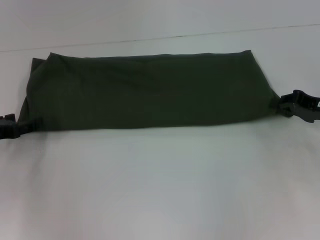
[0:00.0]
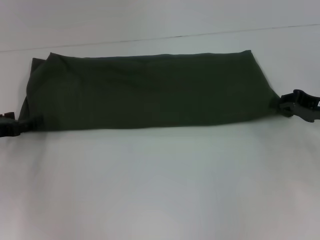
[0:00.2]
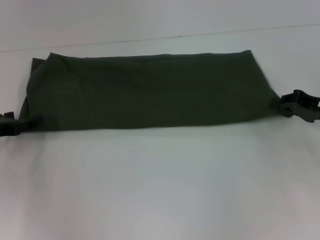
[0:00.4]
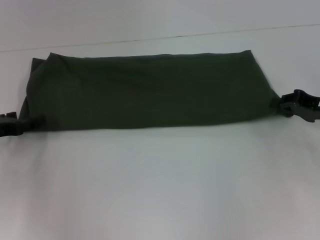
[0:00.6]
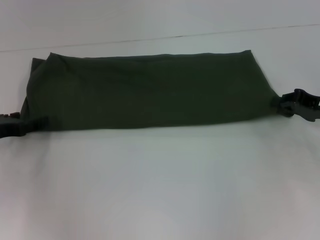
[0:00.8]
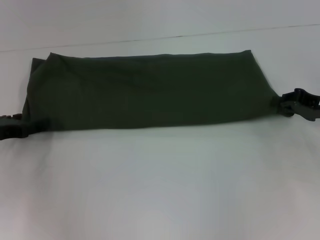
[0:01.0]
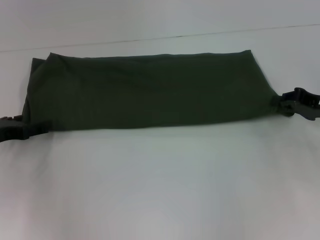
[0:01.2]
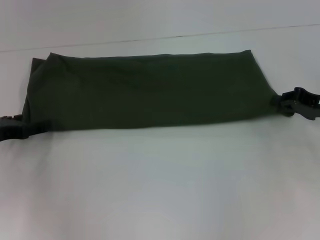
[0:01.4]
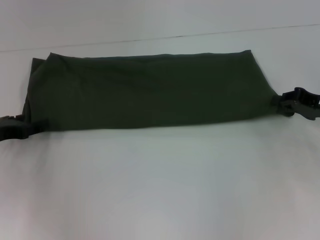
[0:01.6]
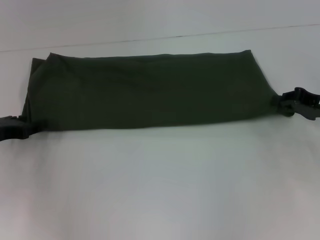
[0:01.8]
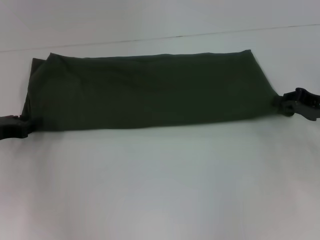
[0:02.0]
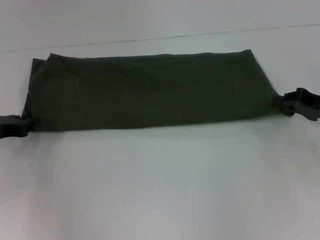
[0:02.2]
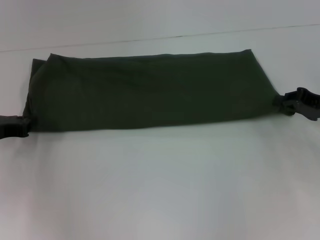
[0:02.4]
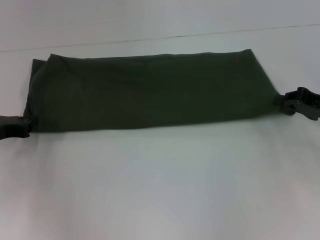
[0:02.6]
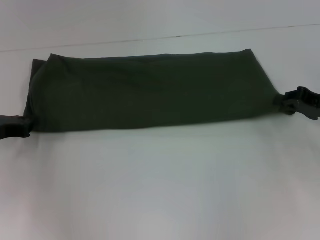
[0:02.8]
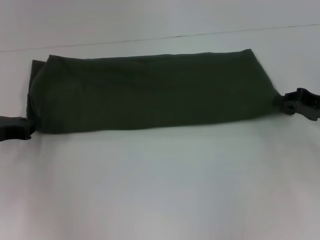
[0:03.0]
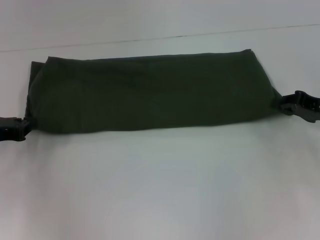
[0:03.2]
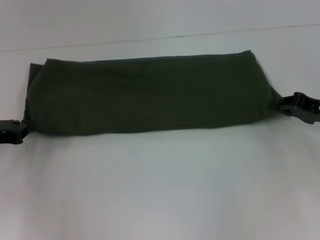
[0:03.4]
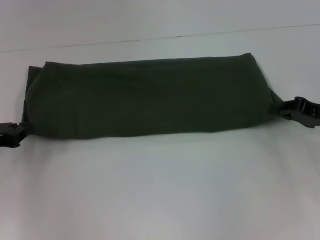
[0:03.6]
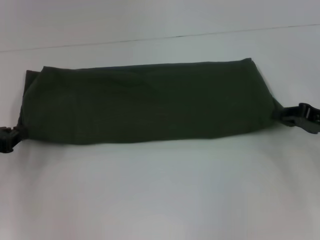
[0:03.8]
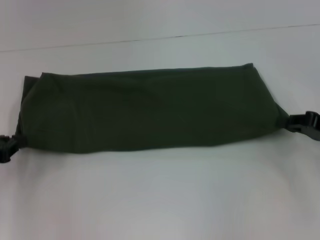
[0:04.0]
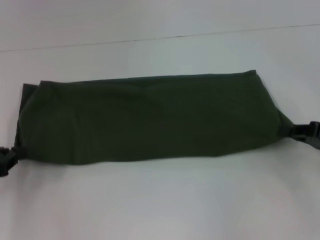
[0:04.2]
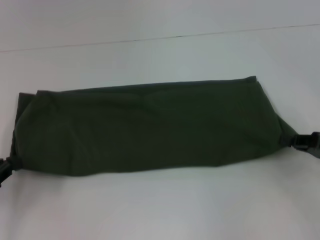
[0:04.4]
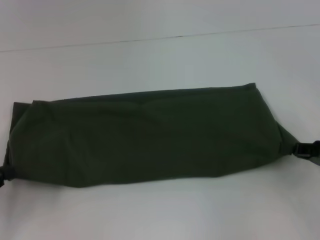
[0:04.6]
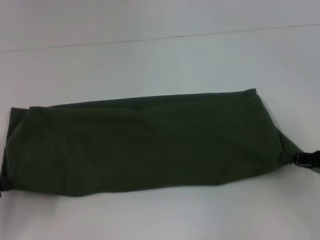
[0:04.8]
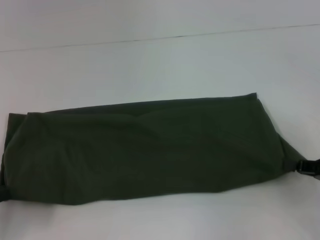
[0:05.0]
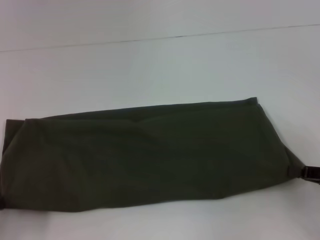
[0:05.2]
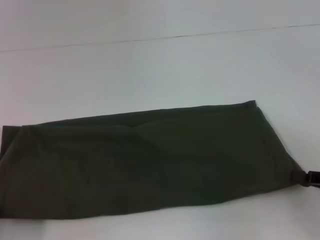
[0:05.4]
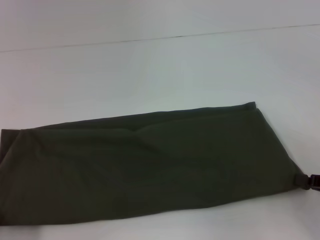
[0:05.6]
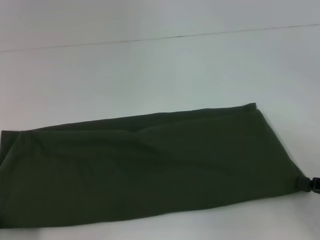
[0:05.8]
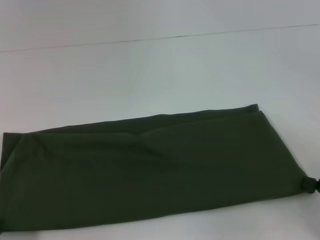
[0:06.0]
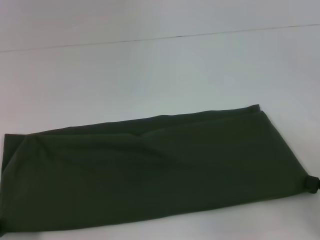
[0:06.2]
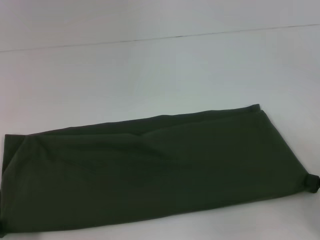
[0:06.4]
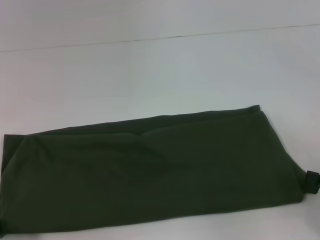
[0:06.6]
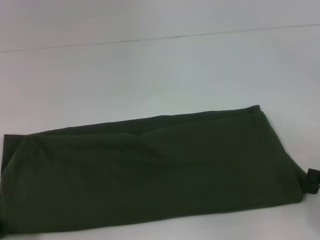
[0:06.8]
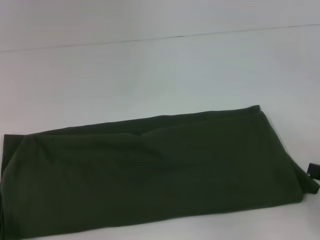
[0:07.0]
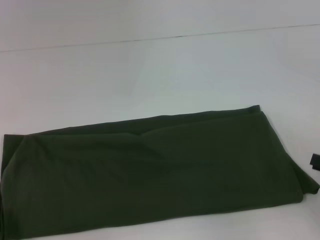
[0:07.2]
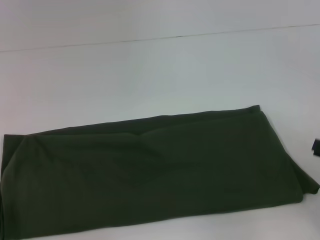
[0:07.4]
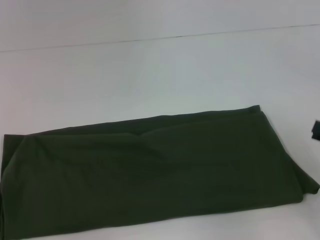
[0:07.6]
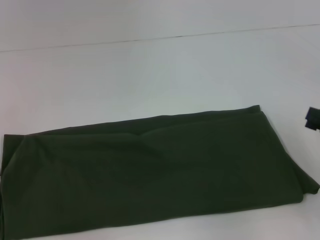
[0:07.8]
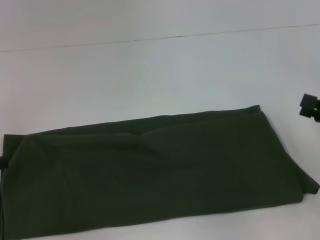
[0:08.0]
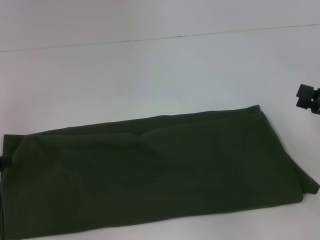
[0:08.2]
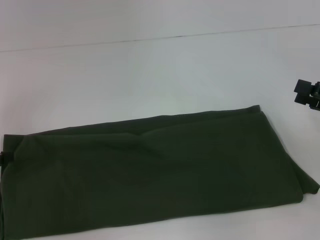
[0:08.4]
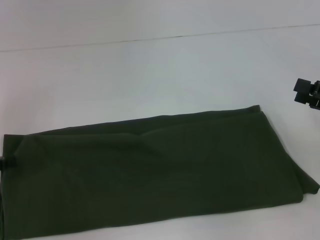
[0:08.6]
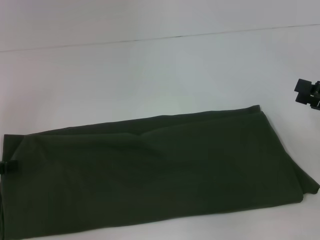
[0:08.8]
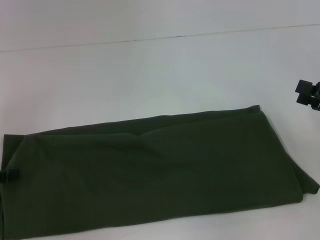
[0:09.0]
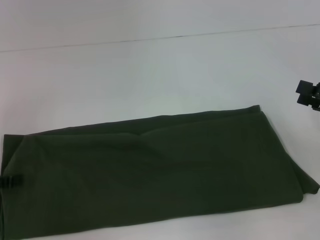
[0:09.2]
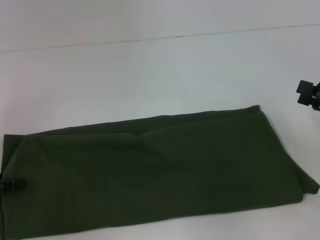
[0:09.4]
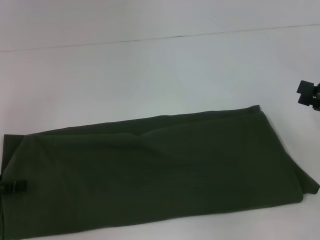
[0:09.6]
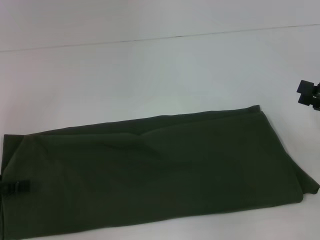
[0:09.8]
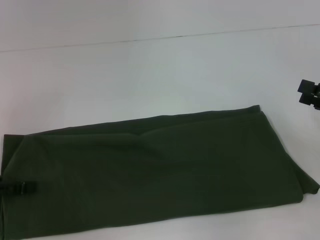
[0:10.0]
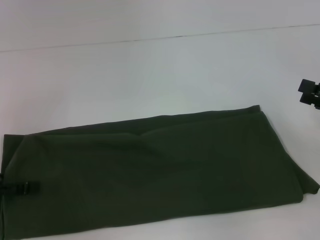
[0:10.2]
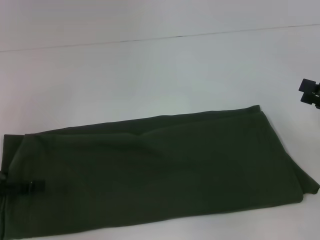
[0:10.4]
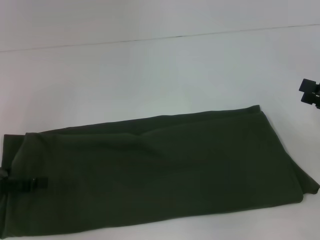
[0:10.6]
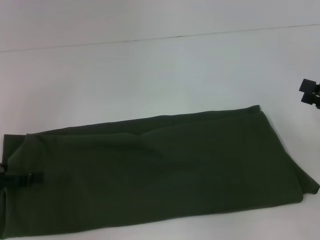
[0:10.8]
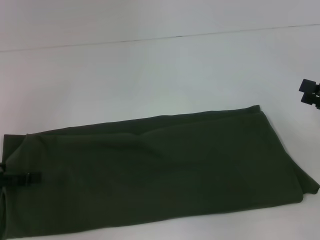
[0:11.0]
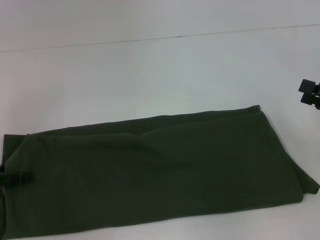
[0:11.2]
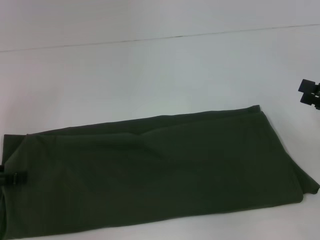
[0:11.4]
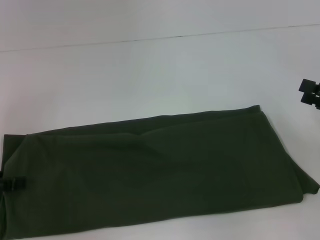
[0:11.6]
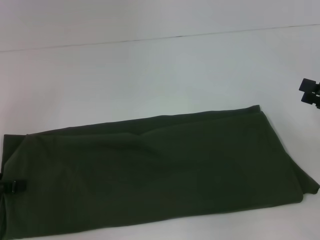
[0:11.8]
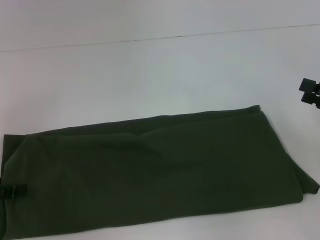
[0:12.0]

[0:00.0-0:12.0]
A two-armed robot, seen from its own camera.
0:00.0 to 0:01.6: There are only small adjustments of the grippers.
0:01.6 to 0:03.0: The left gripper closes its fingers.
0:03.0 to 0:04.4: The two grippers go approximately 10 cm backward.
0:04.4 to 0:06.0: Both grippers move backward, roughly 10 cm.
0:06.0 to 0:07.6: The right gripper opens.
0:07.6 to 0:09.0: The right gripper travels forward by approximately 5 cm, and opens its fingers.

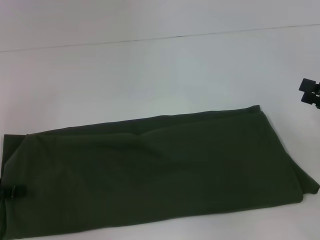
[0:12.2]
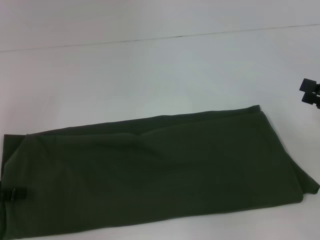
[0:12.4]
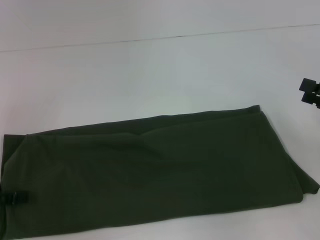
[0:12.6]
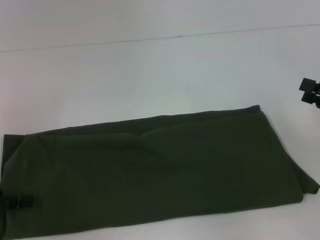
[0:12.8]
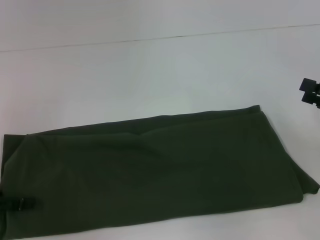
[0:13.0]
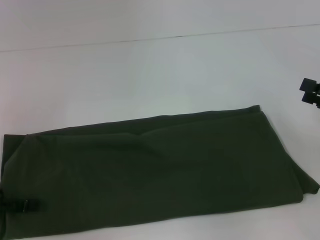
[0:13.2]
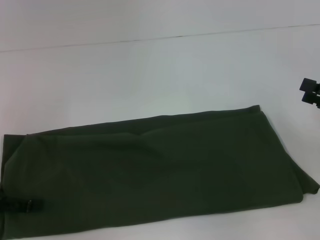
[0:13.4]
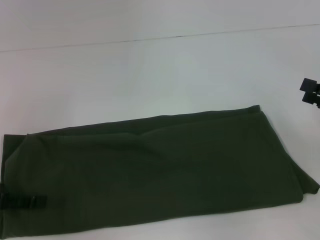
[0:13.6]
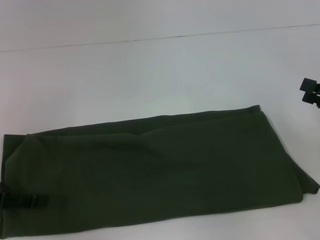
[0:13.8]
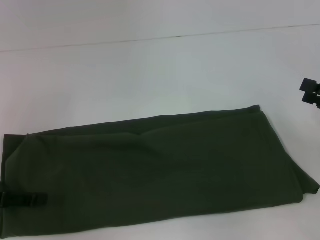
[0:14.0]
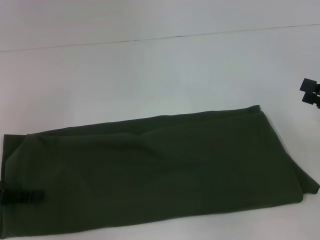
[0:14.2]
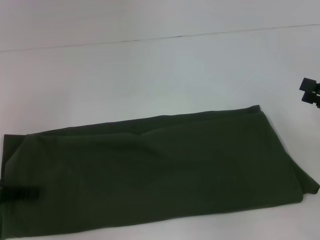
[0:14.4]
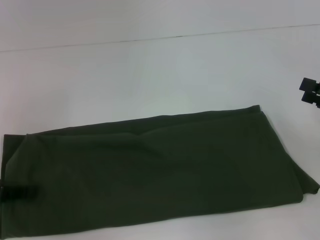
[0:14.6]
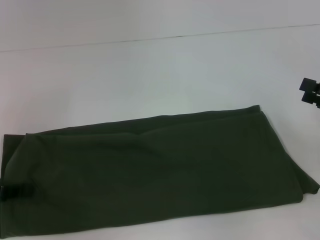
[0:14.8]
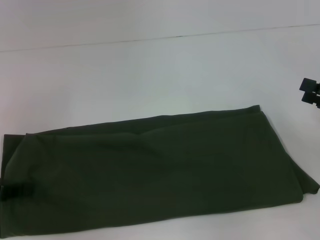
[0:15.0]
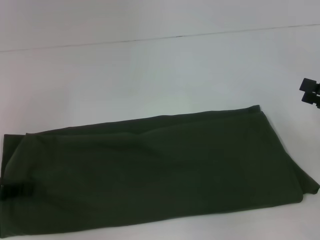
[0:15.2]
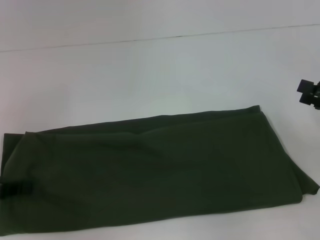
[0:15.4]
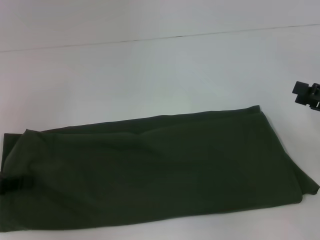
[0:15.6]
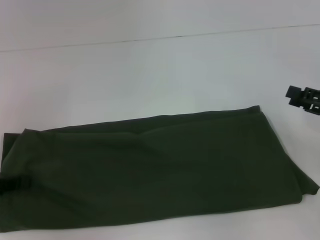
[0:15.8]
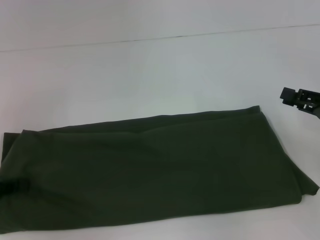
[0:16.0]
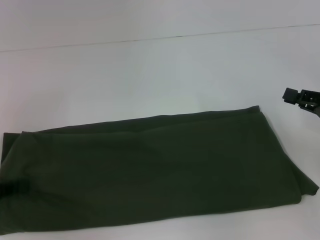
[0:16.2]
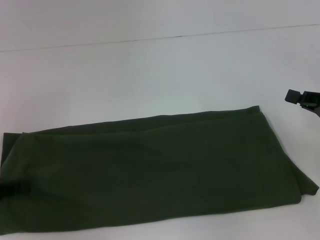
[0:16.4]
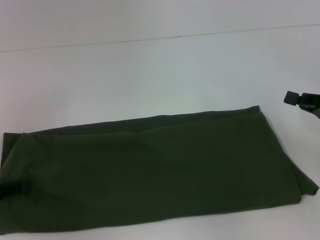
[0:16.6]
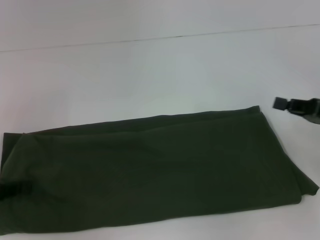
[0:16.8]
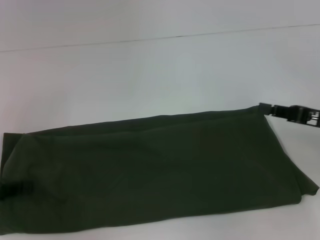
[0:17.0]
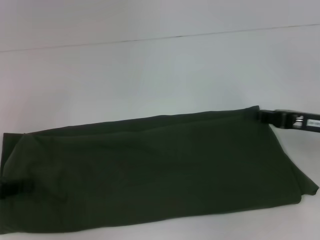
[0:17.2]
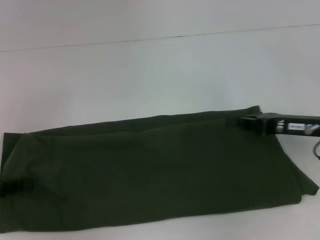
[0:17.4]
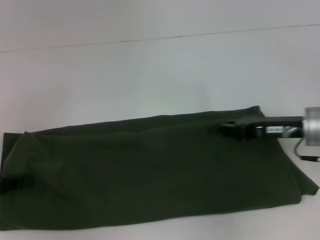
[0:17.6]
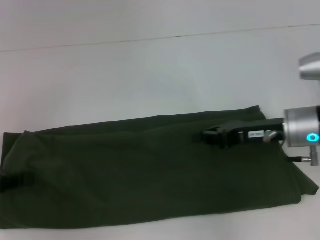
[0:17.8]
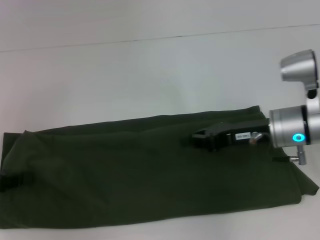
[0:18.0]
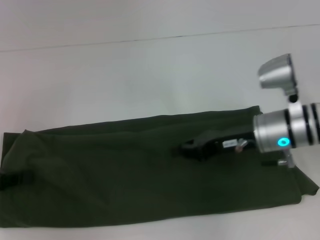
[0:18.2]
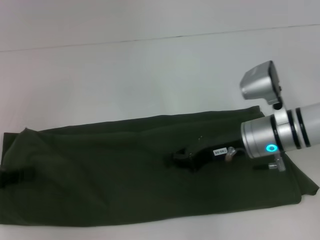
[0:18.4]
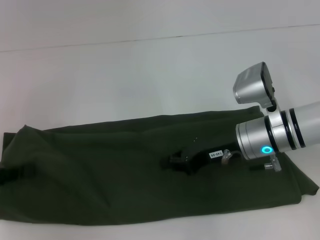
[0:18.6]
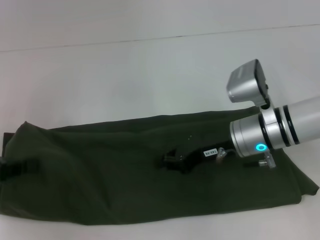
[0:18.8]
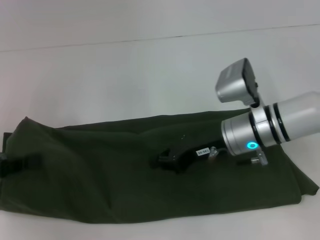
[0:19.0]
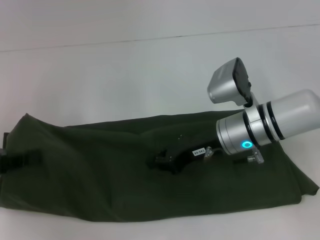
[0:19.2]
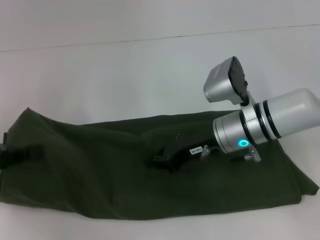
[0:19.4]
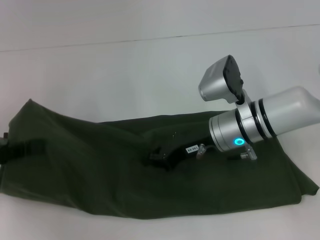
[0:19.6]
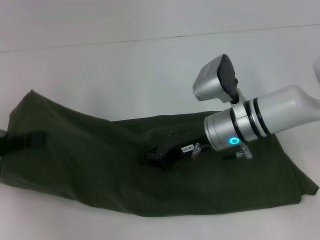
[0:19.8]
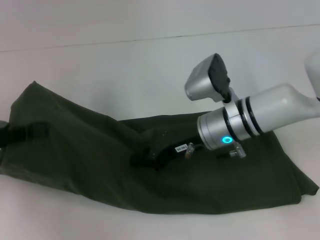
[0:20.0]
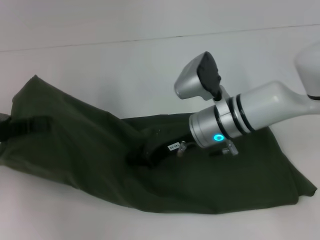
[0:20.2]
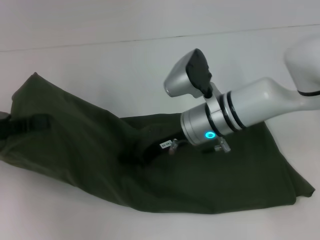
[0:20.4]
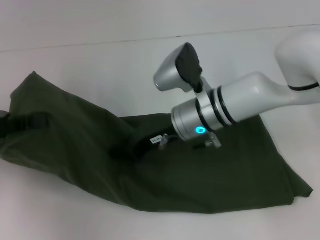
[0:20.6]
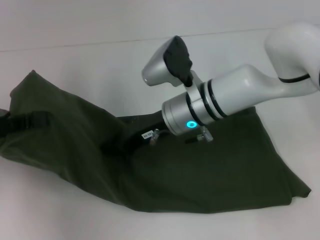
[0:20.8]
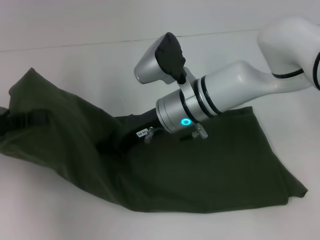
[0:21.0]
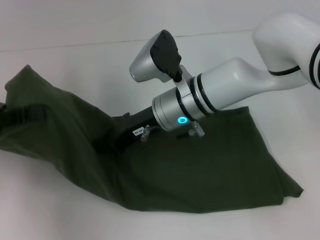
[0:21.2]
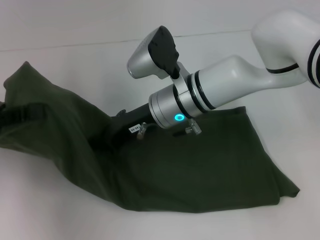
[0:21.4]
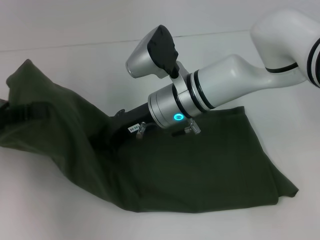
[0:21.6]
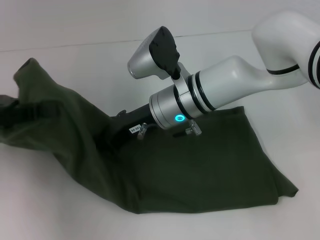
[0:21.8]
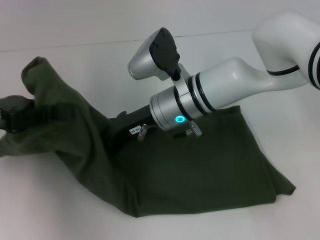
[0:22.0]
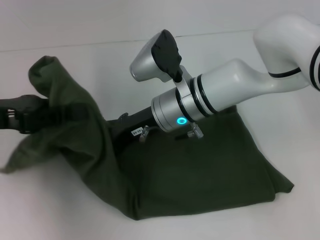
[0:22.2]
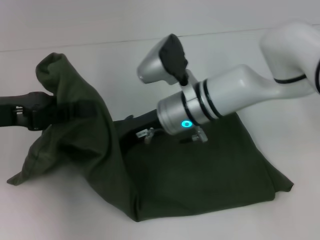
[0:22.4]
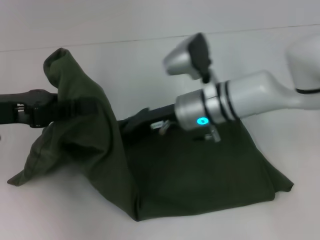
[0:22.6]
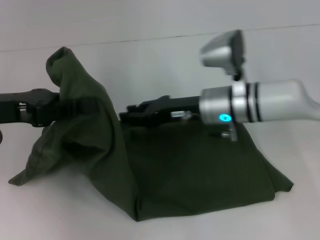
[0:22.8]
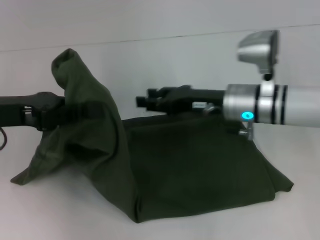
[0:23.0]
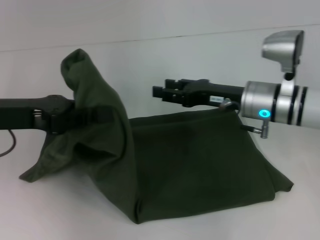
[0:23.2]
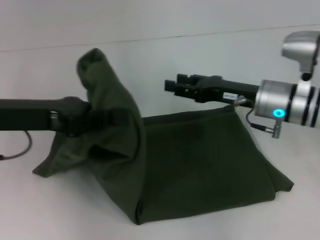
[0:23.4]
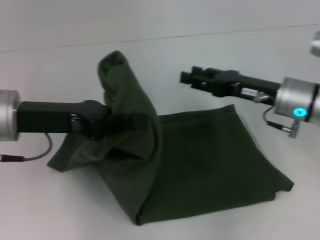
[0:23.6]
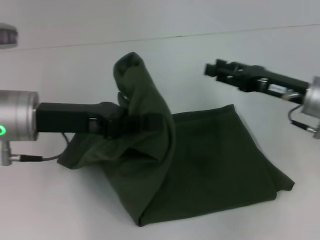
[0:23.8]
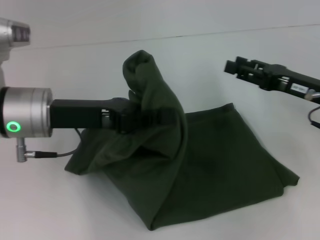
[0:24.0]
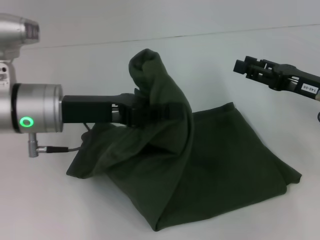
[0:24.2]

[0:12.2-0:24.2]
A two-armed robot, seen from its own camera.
0:15.2 to 0:16.6: The right gripper closes.
0:16.6 to 0:18.2: The right gripper moves to the left, approximately 15 cm.
0:18.2 to 0:19.8: The right gripper is displaced to the left by approximately 5 cm, while the left gripper ends up approximately 5 cm from where it was.
0:19.8 to 0:21.2: The right gripper travels to the left by approximately 10 cm.
0:21.2 to 0:22.6: The left gripper shifts some 5 cm to the right.
0:22.6 to 0:24.2: The right gripper is displaced to the right by about 20 cm, and opens up, while the left gripper travels to the right by some 10 cm.
